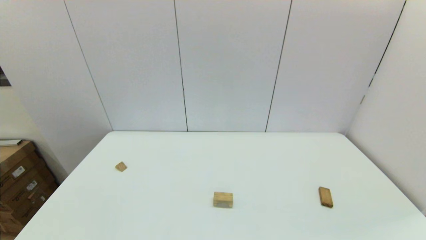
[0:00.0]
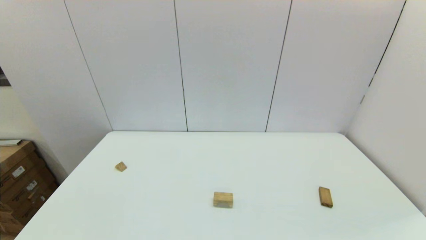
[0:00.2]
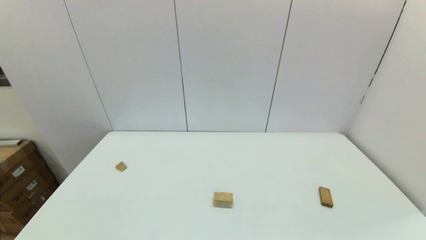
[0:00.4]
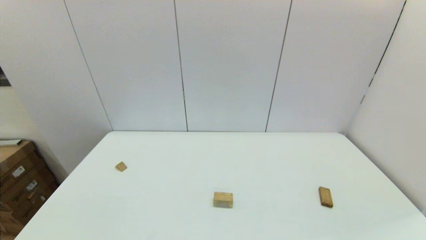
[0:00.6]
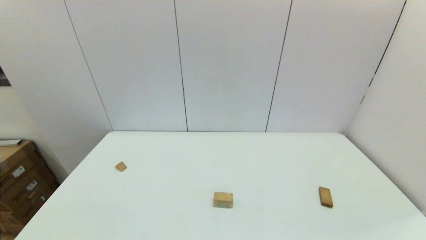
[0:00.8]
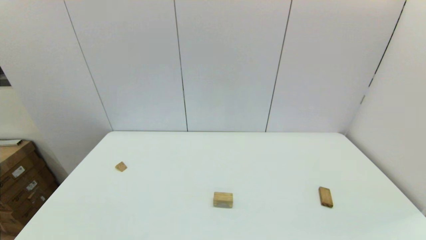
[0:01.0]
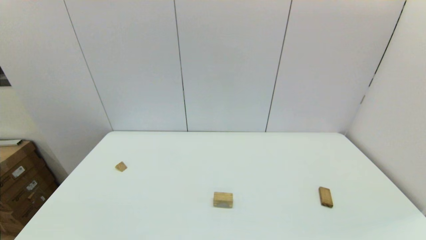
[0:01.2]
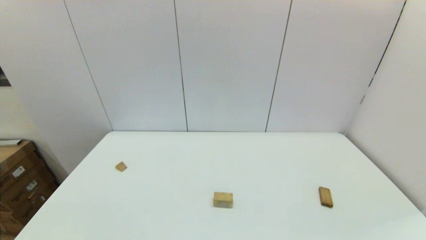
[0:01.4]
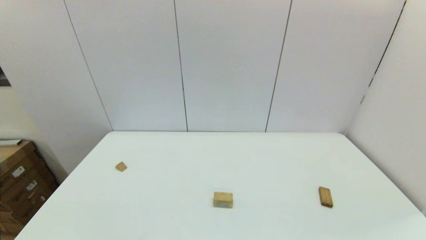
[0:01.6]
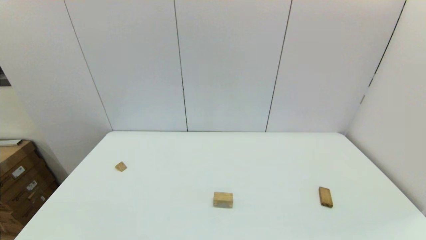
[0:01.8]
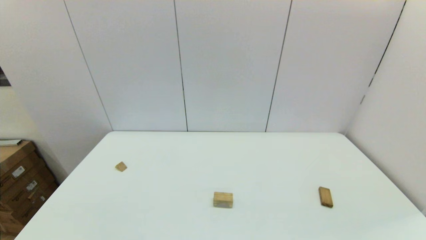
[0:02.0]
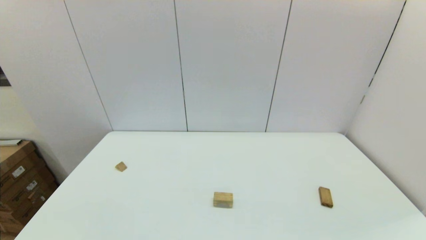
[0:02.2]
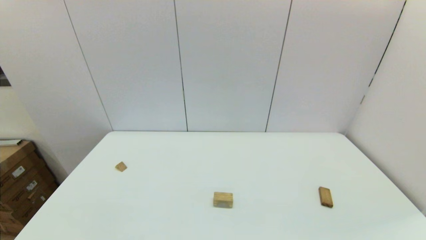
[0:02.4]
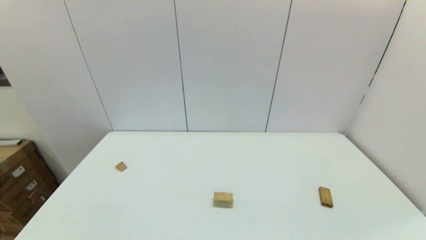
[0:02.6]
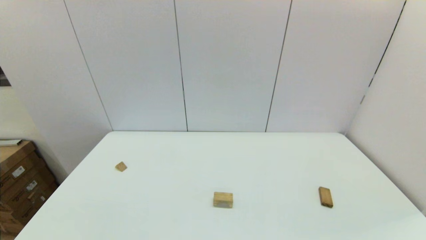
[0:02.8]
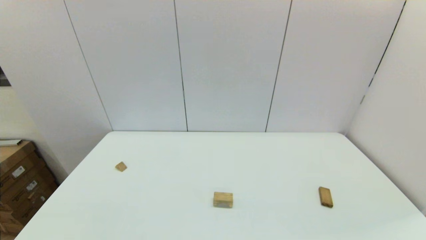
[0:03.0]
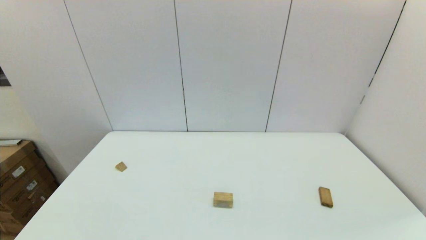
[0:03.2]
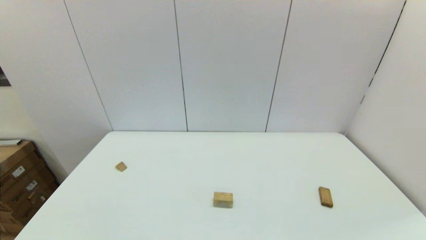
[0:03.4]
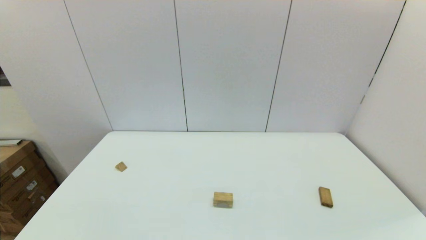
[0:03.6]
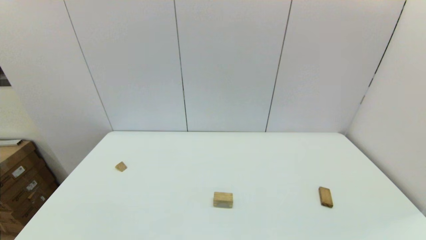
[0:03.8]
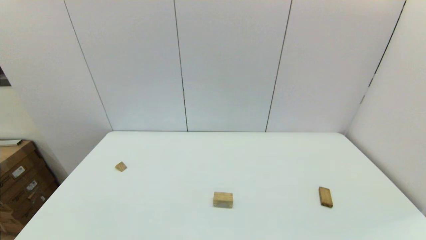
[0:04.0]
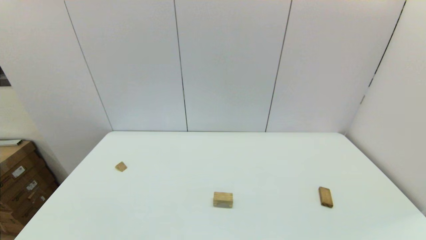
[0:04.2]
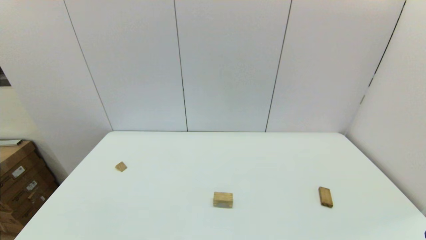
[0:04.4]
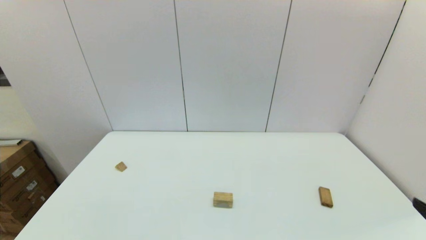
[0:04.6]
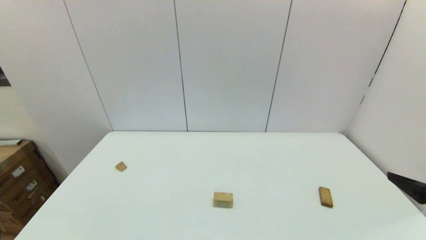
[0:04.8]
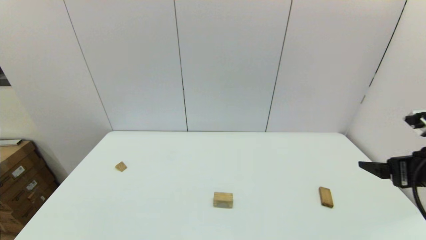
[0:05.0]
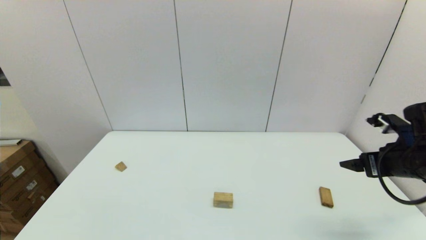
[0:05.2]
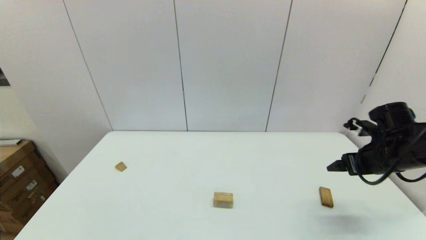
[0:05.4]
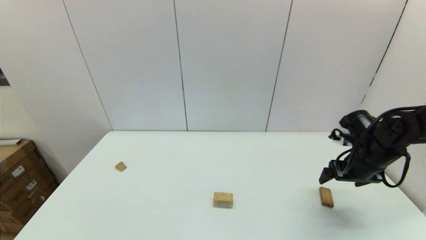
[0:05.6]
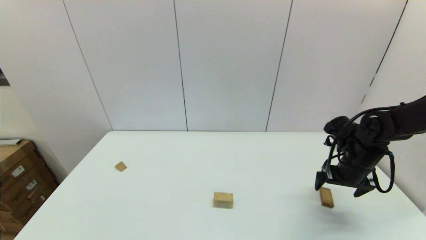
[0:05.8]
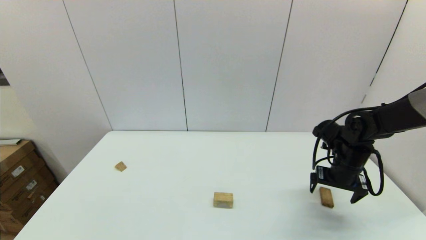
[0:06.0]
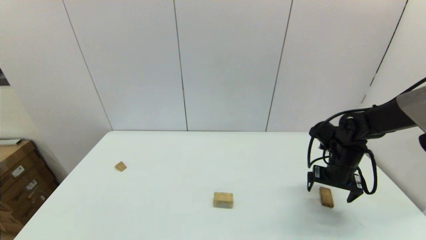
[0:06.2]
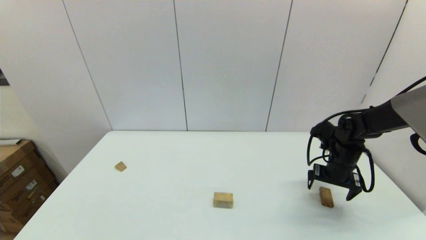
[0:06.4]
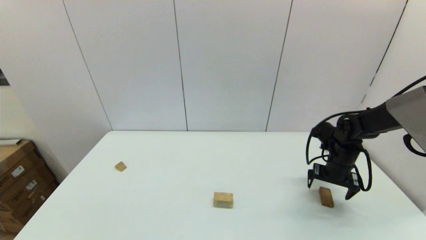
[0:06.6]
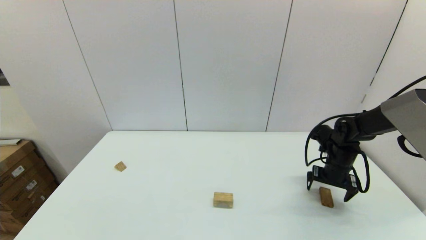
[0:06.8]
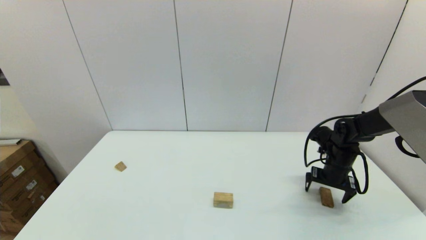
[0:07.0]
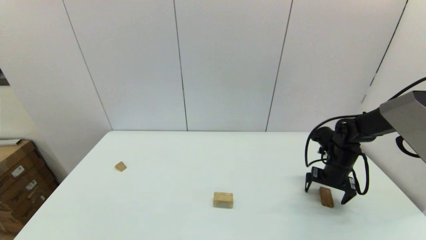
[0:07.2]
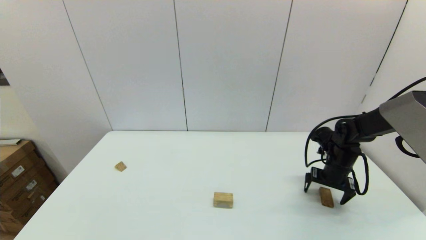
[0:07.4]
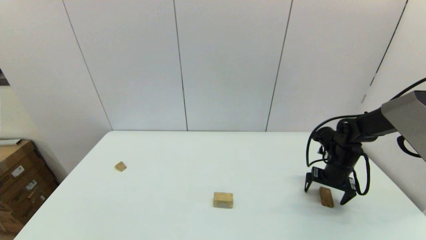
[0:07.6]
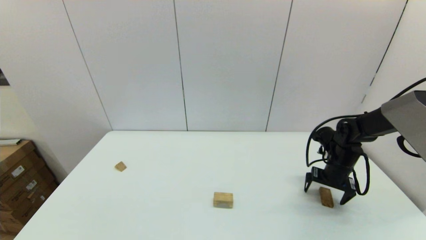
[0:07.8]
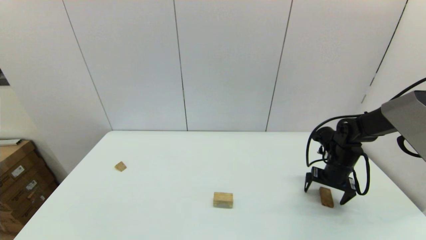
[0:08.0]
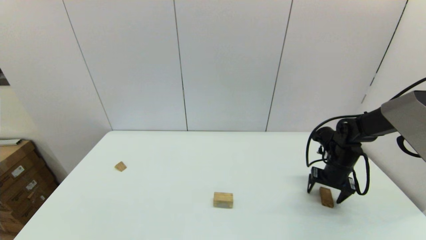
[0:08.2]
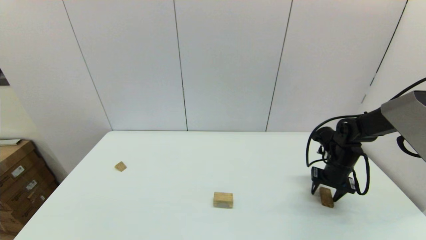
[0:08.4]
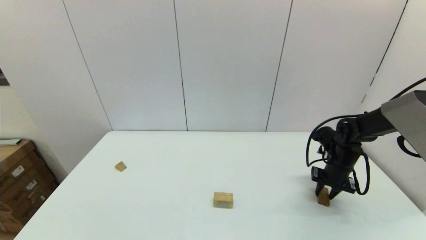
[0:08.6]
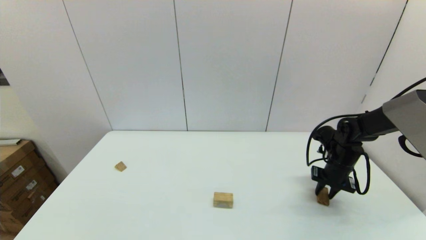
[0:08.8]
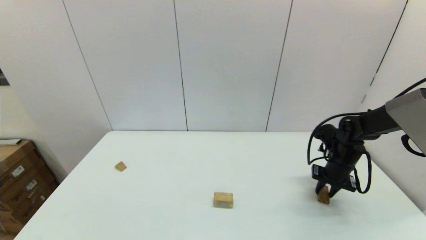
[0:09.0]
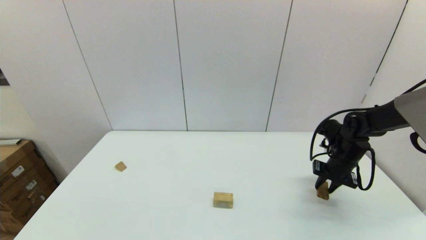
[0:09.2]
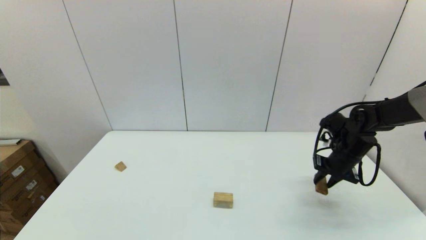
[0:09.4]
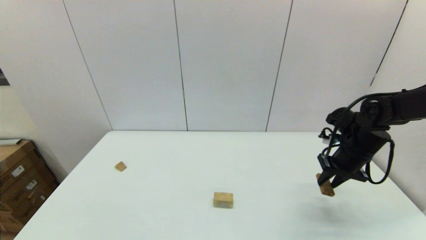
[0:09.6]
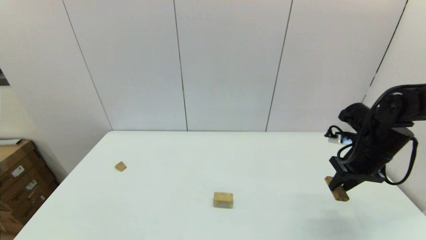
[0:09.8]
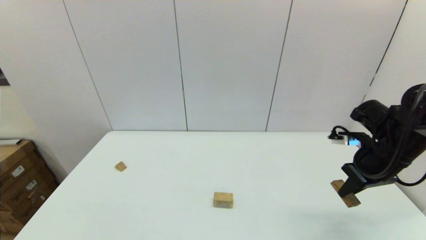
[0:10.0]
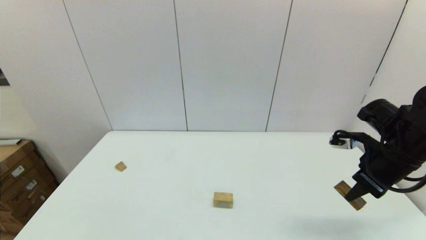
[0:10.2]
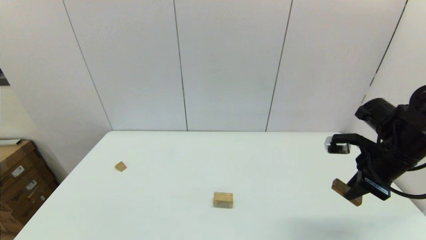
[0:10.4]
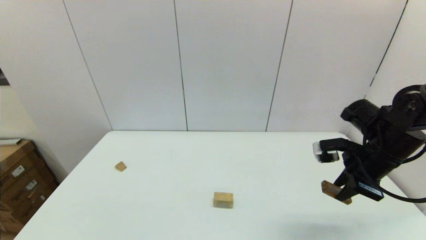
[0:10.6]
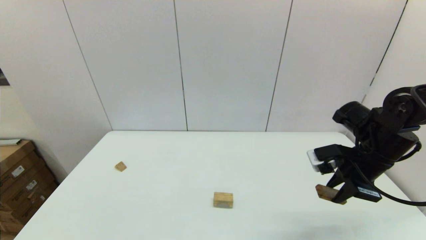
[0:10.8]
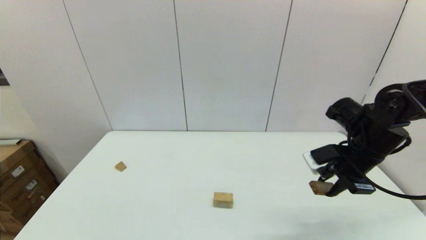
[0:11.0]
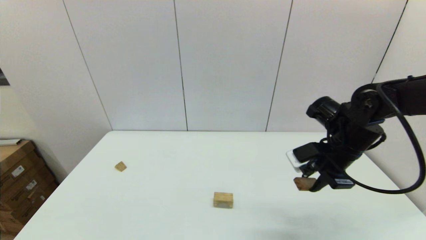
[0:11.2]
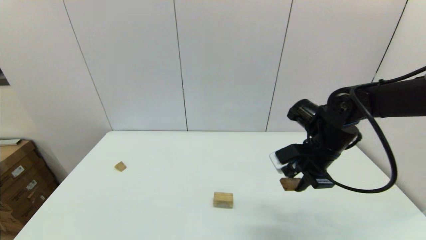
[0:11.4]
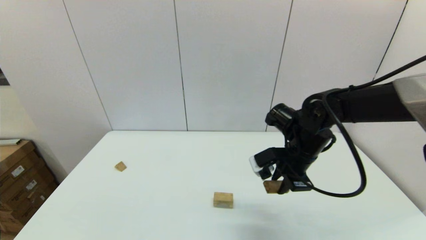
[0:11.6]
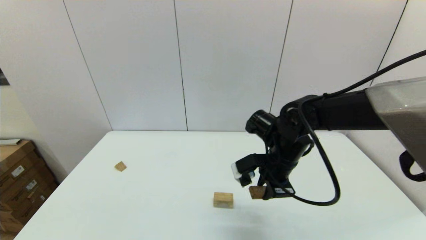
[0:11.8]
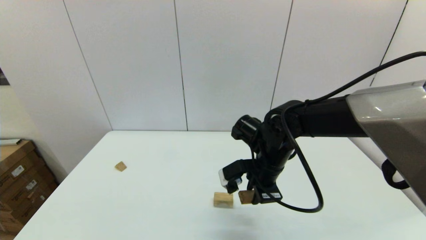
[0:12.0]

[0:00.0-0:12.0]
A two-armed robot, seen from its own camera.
Task of the whole recording: place the arched building blocks in the center of the table, set up the rectangular building blocks, and then set up the triangular building blocks.
Step, 0:00.0 to 0:08.6: Grasp the box-shaped block with the right gripper.
0:01.6 to 0:03.0: Both grippers stay put.
0:04.4 to 0:06.0: The right gripper heads forward, covering some 35 cm.
0:06.0 to 0:07.6: The right gripper ends up some 5 cm from where it was.
0:07.6 to 0:09.0: The right gripper closes up.
0:09.0 to 0:10.4: The right gripper shifts some 15 cm upward and backward.
0:10.4 to 0:12.0: The right gripper is displaced to the left by approximately 20 cm.

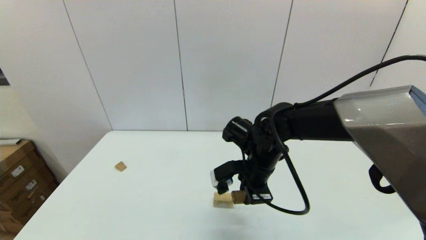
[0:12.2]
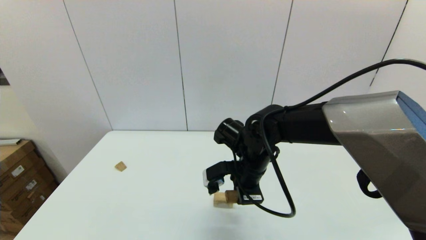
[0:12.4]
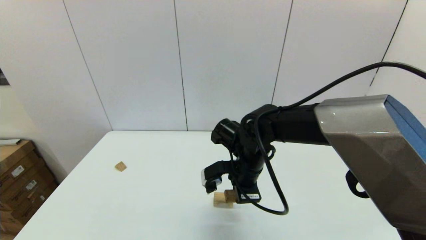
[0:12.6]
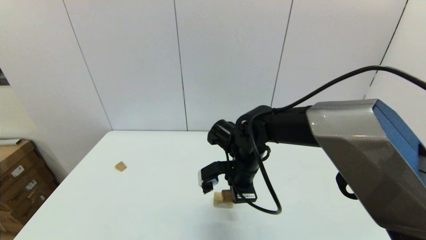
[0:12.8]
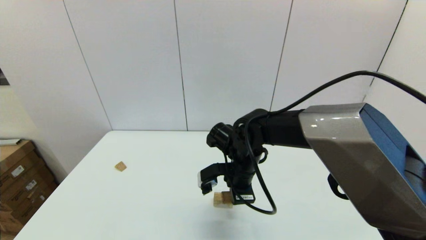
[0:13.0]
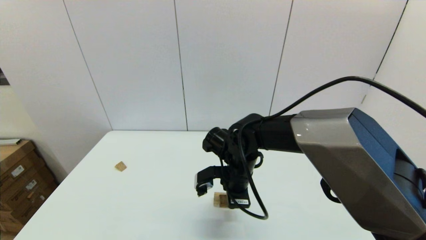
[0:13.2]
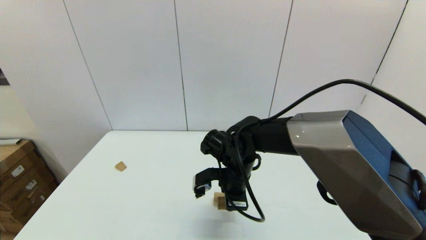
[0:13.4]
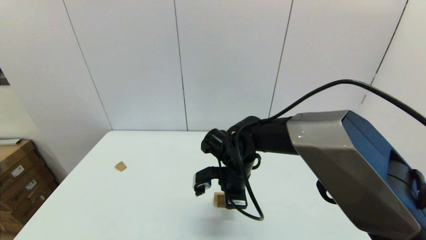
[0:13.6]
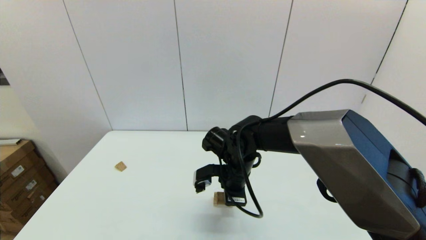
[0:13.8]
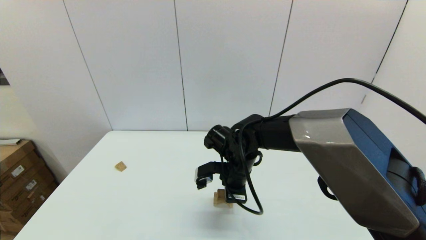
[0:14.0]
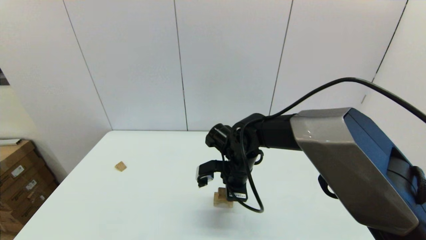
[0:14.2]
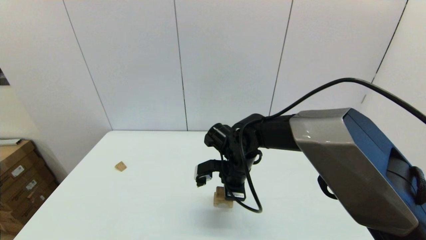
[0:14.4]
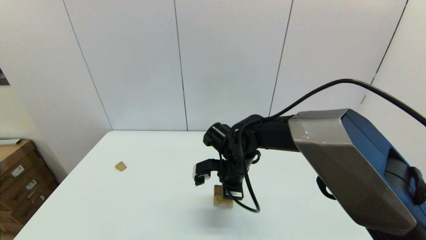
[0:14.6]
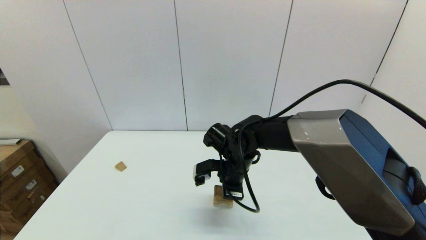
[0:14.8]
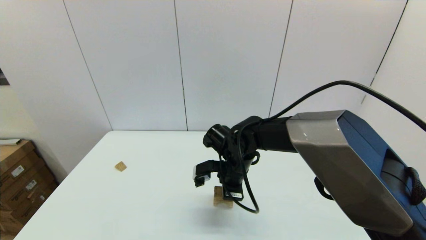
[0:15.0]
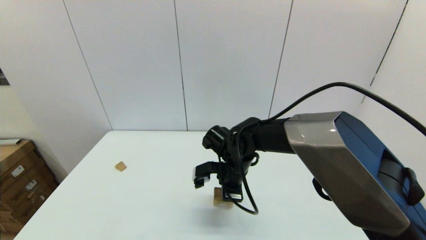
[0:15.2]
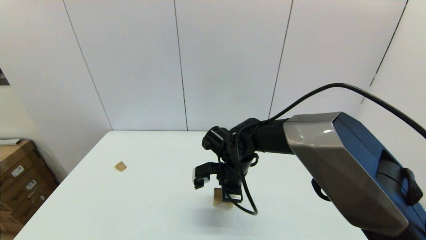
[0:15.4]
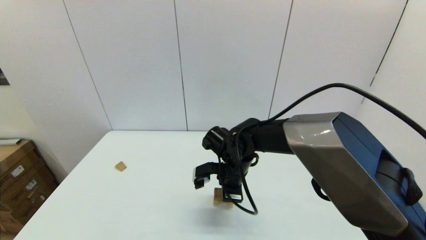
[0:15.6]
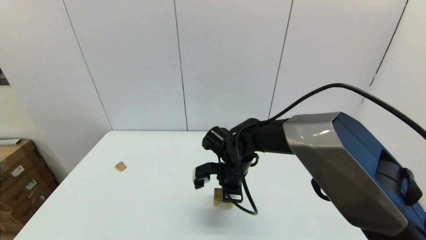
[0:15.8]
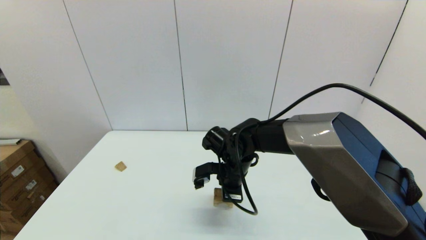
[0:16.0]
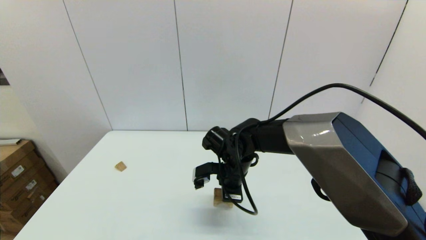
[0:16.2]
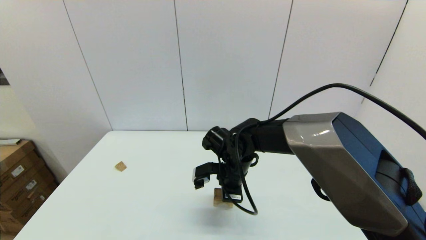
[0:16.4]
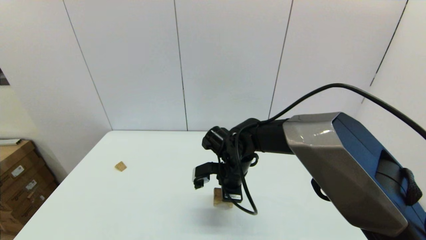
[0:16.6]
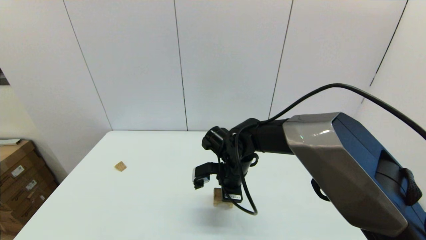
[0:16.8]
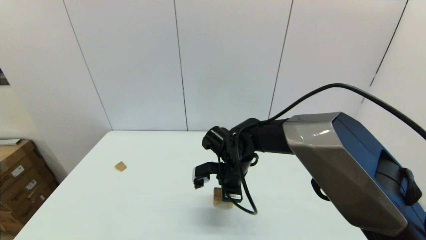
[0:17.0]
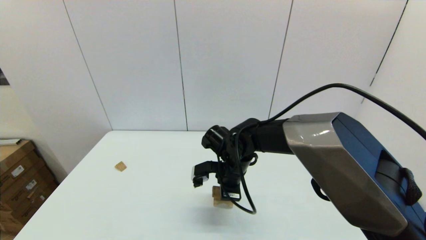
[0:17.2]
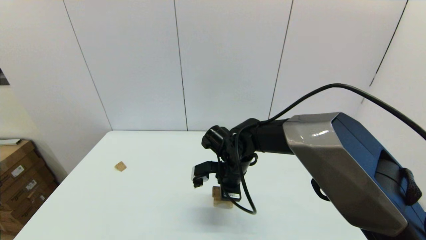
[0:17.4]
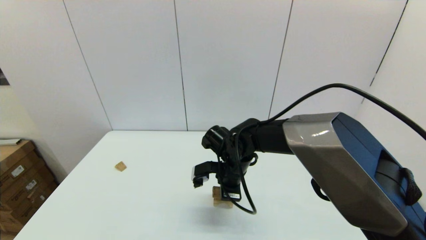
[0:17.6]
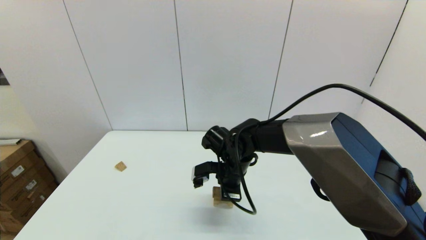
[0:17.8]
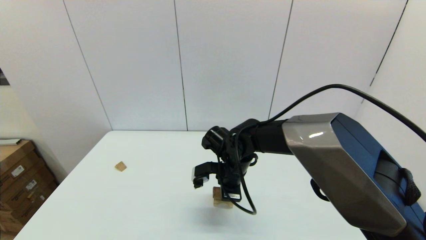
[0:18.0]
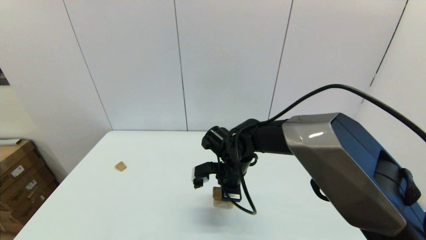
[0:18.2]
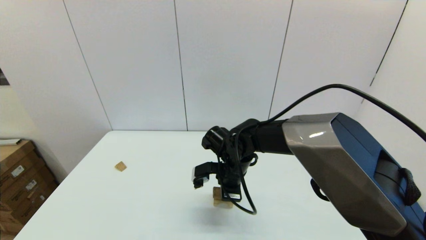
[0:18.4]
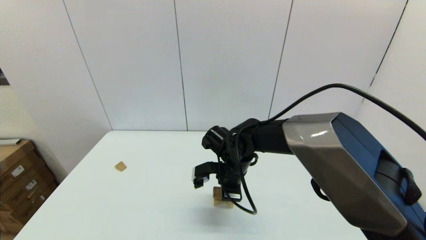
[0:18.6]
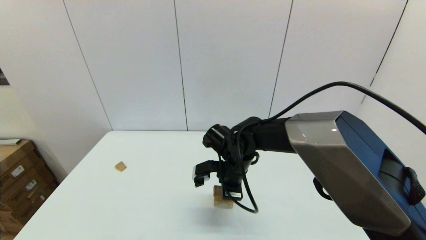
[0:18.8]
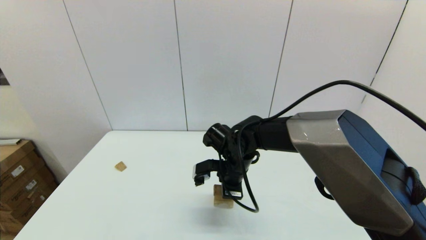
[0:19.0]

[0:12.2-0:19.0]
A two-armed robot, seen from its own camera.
Task of the whole recording: place the arched building blocks in the center of the table, set up the rectangular building blocks, and then set up the triangular building blocks.
0:12.2 to 0:13.6: The right gripper moves roughly 5 cm.
0:13.6 to 0:15.0: There are only small adjustments of the grippers.
0:15.0 to 0:19.0: Neither gripper changes place.
